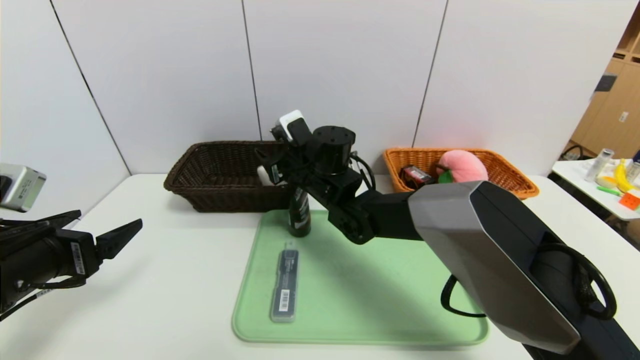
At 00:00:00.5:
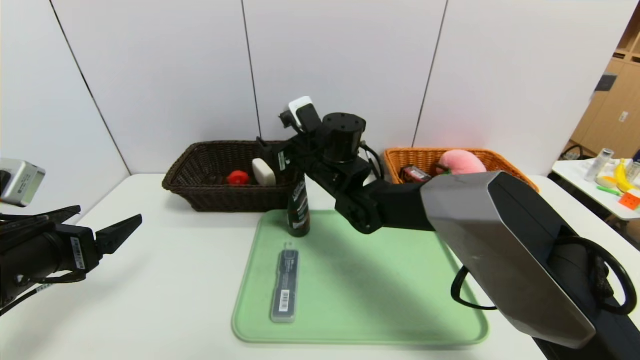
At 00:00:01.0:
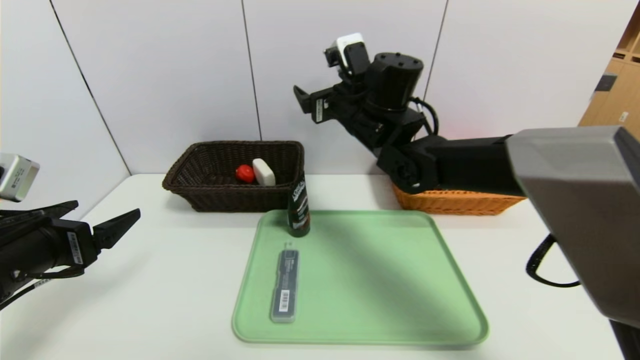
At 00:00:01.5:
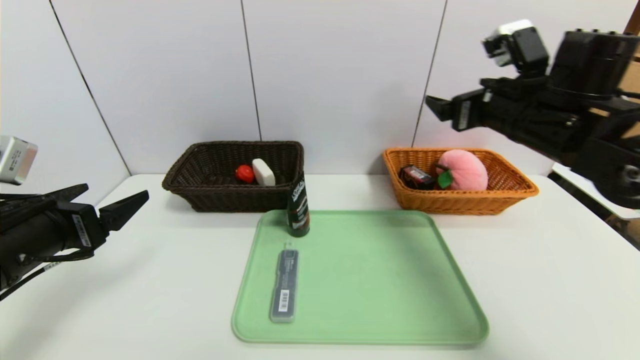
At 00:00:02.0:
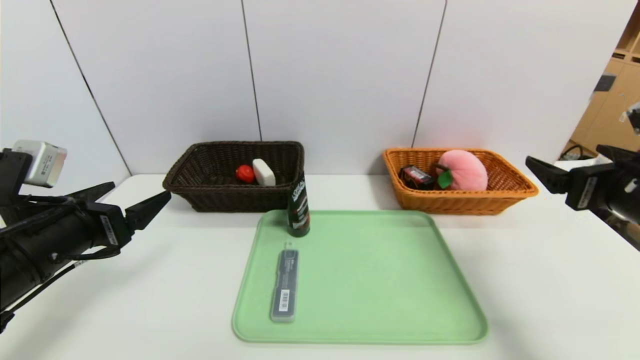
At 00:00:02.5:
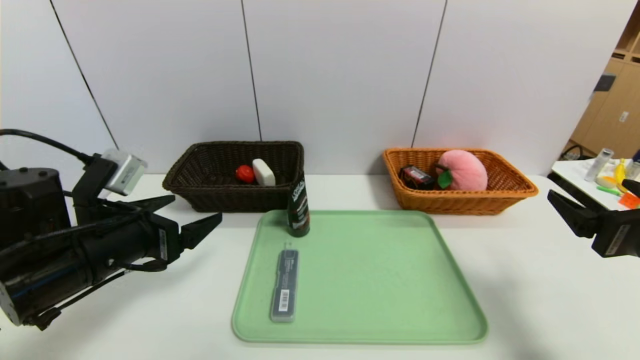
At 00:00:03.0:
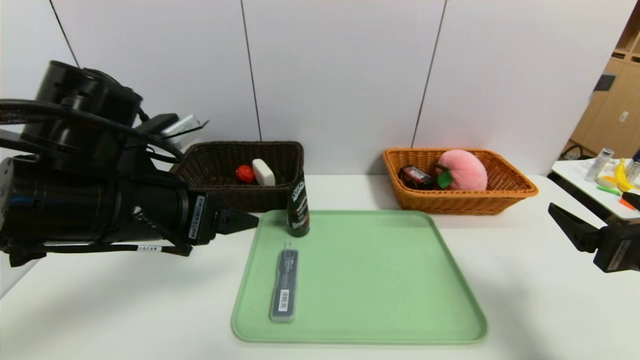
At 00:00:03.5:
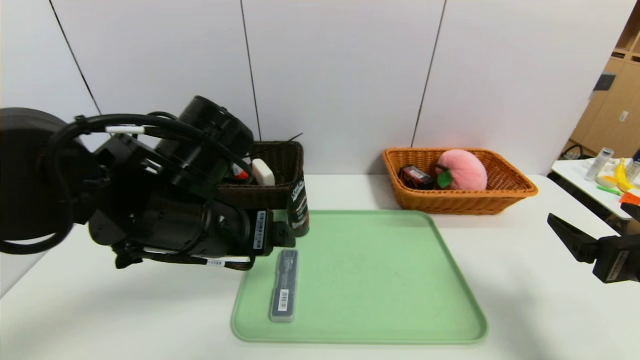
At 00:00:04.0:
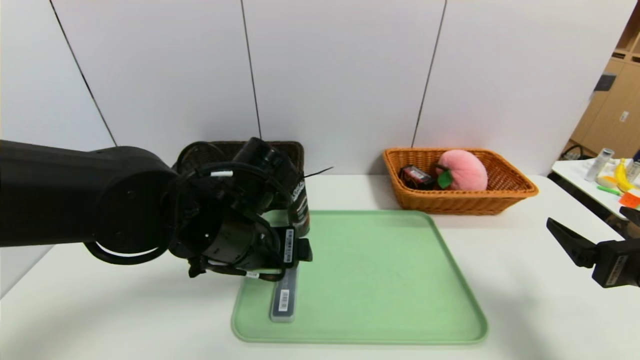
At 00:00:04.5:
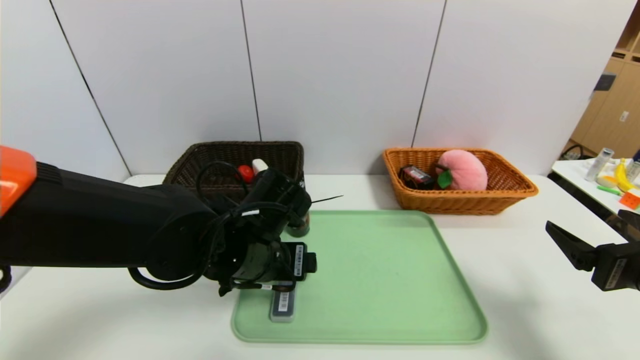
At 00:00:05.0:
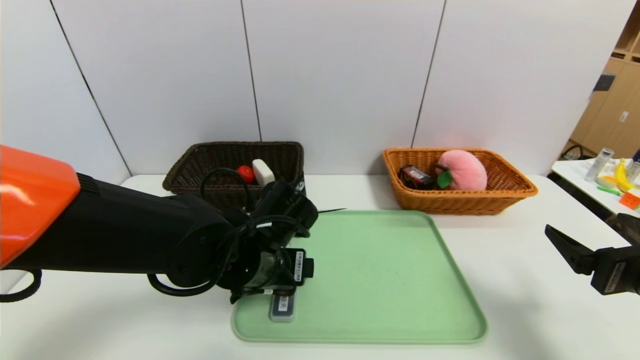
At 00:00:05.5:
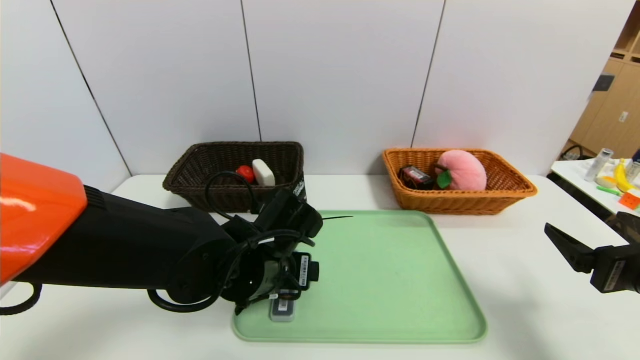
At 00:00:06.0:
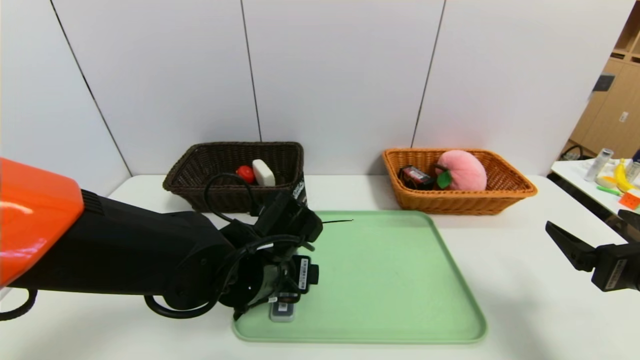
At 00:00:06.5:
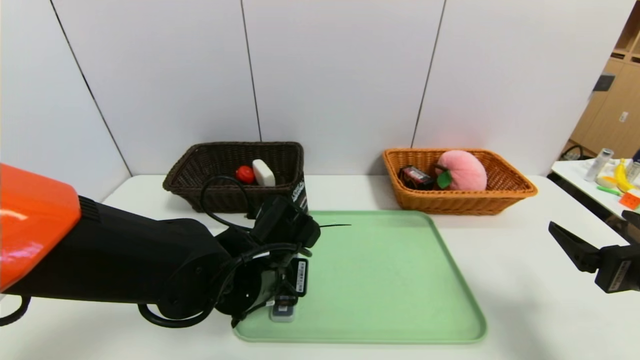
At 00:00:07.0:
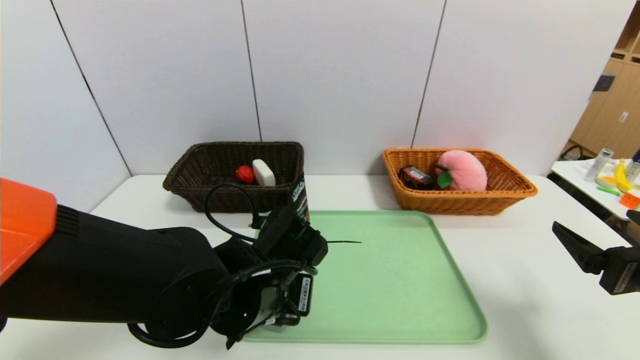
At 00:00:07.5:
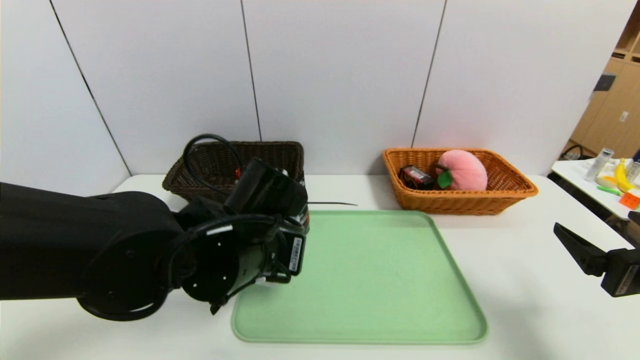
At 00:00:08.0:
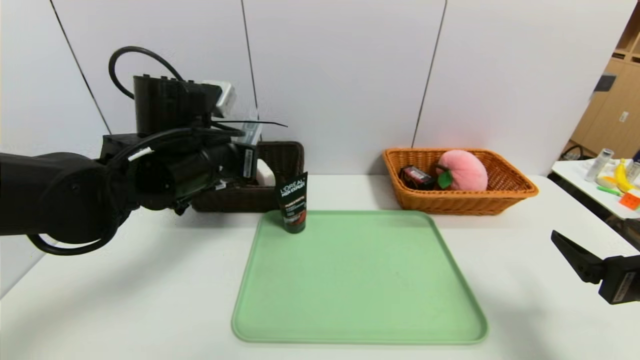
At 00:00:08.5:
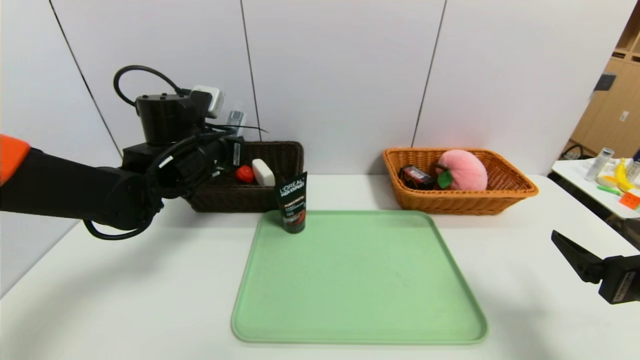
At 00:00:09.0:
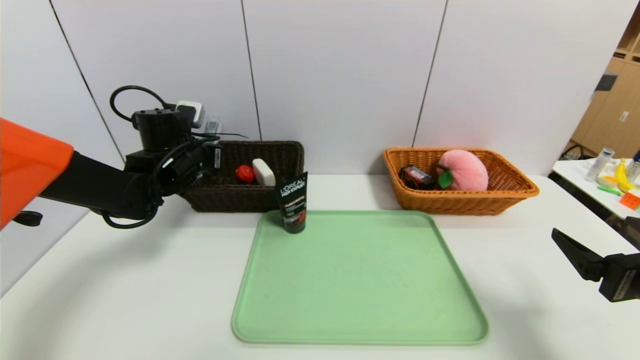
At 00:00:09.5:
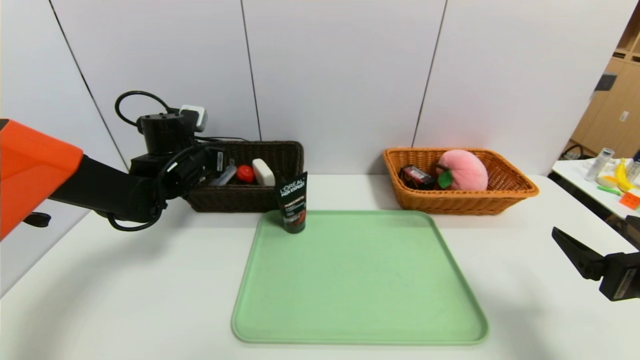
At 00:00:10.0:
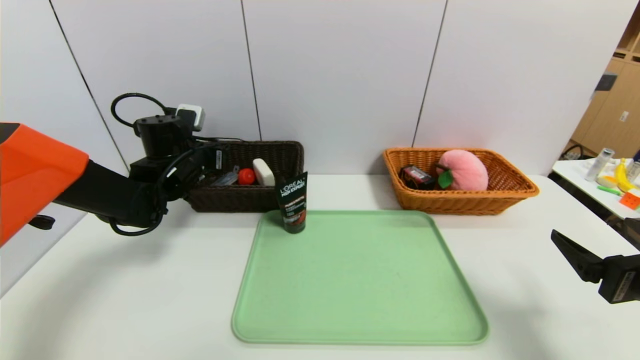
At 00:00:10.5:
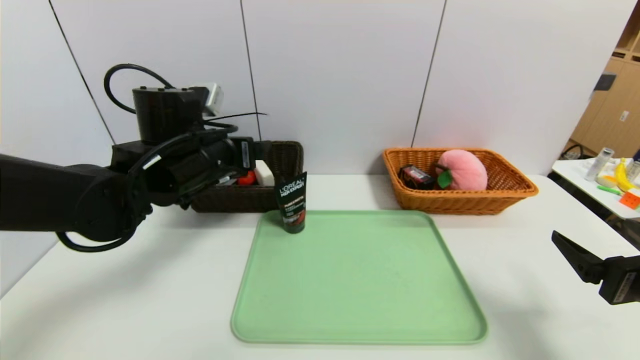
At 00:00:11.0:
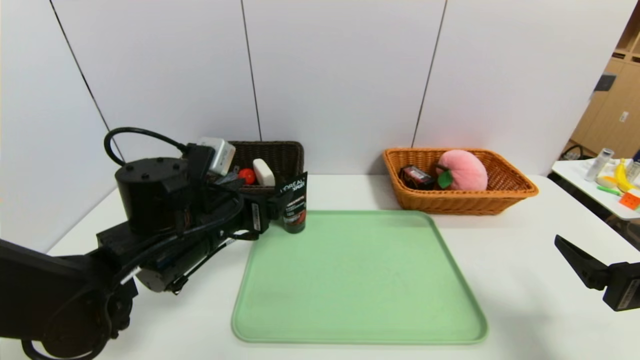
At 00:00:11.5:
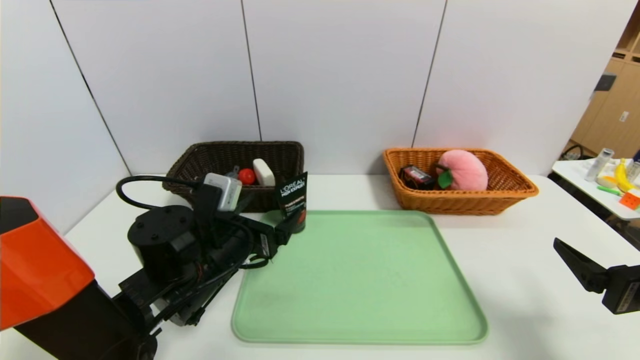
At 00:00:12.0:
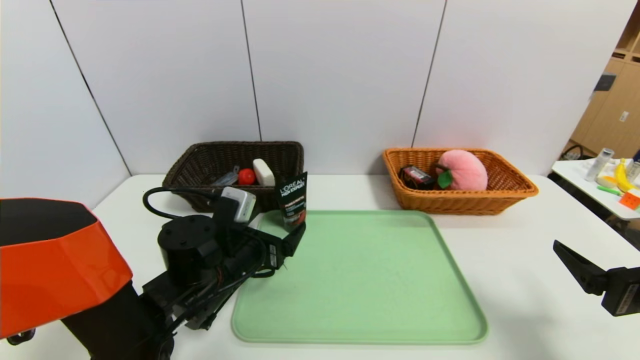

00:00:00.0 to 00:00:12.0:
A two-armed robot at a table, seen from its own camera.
Task of the whole recording: place the food in the right basket with the right gripper, and place the non food items in the left basket with the left gripper.
Step, 00:00:00.5 to 00:00:09.5: Grasp the compass and put it in the left basket.
00:00:00.0 to 00:00:02.0: The right gripper goes about 40 cm to the right and backward, and opens.
00:00:02.0 to 00:00:04.0: The left gripper is displaced to the right by about 20 cm, while the right gripper goes roughly 10 cm backward and downward.
00:00:04.0 to 00:00:06.0: The left gripper goes about 10 cm downward.
00:00:06.0 to 00:00:08.0: The left gripper moves upward and to the left, about 15 cm, and closes.
00:00:08.0 to 00:00:10.0: The left gripper goes some 15 cm forward, to the left and downward, and opens up.
00:00:10.0 to 00:00:12.0: The left gripper is displaced backward, to the right and downward by roughly 20 cm.

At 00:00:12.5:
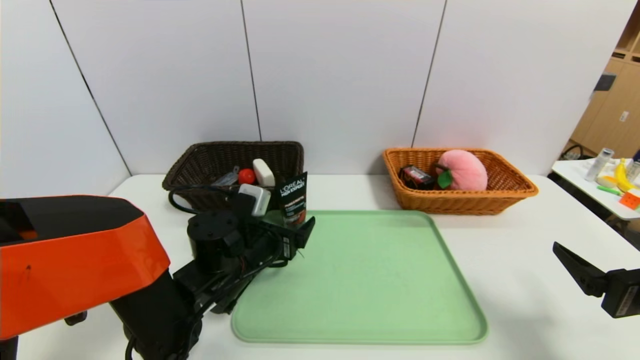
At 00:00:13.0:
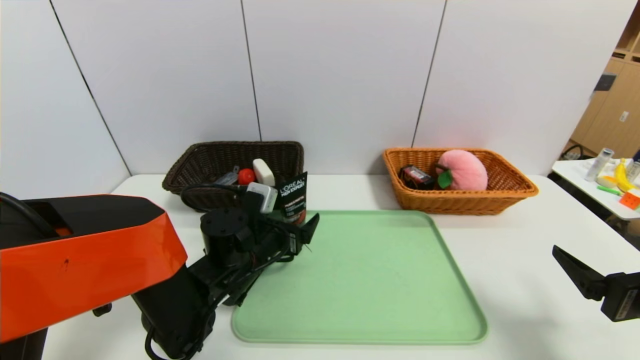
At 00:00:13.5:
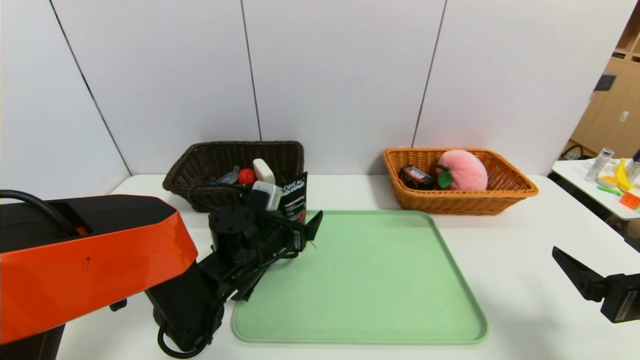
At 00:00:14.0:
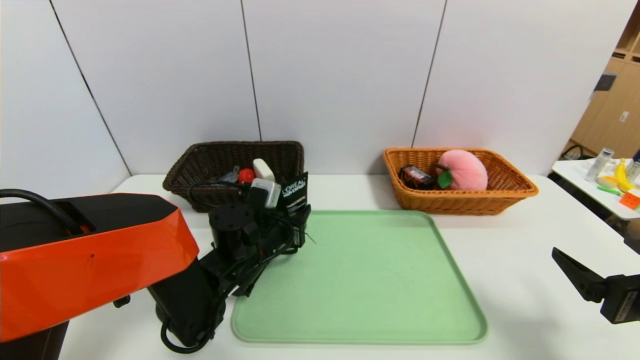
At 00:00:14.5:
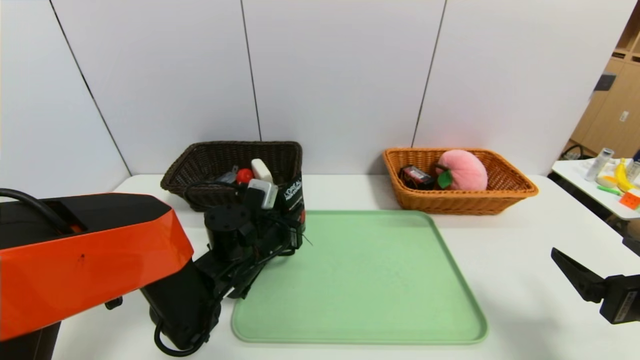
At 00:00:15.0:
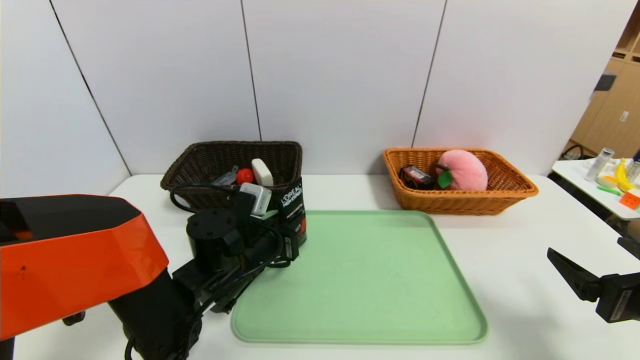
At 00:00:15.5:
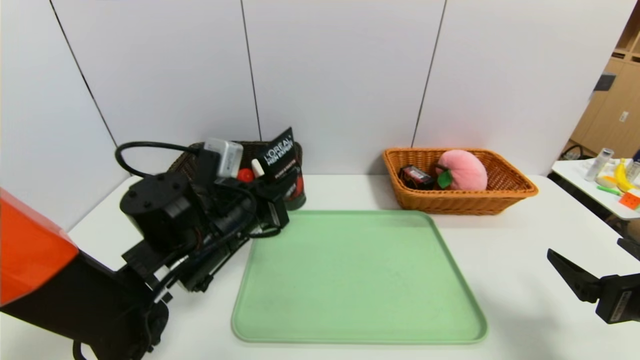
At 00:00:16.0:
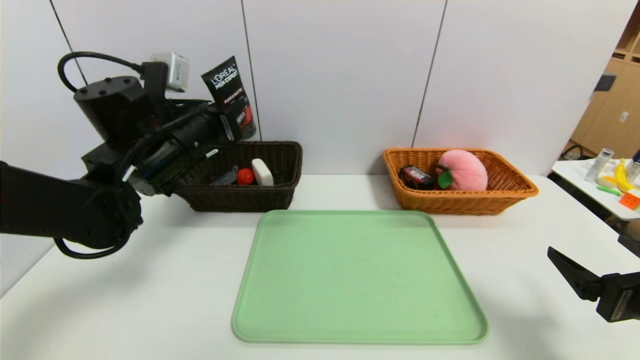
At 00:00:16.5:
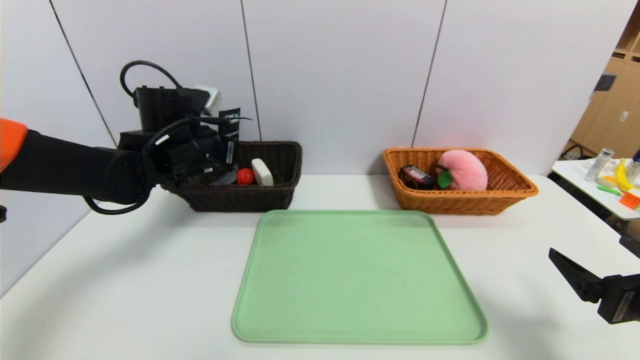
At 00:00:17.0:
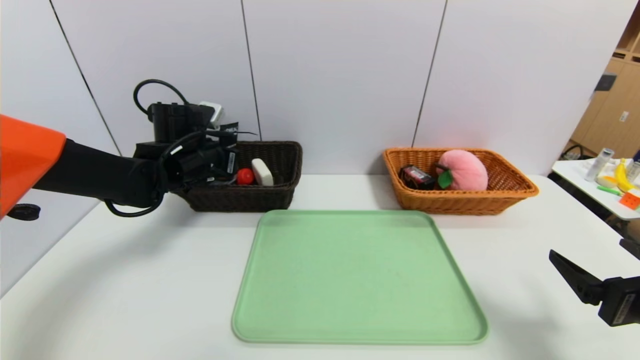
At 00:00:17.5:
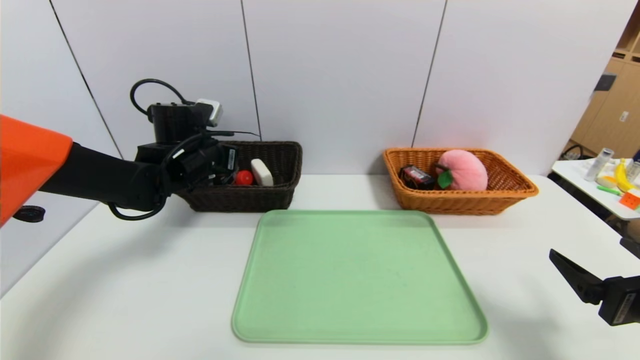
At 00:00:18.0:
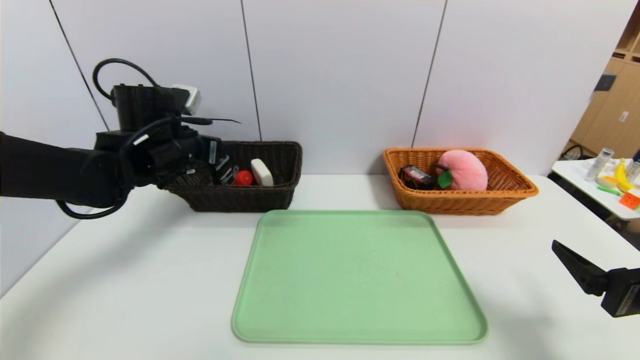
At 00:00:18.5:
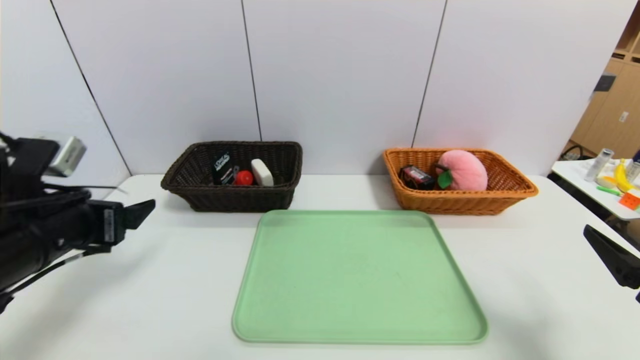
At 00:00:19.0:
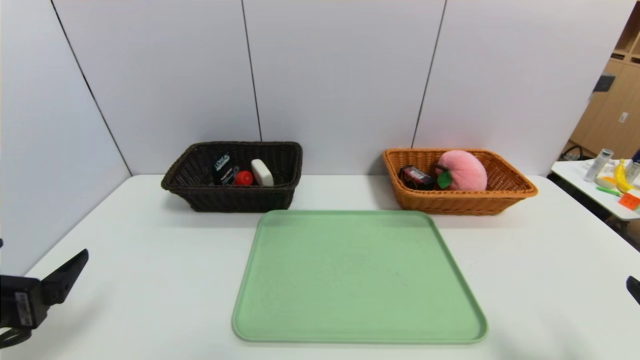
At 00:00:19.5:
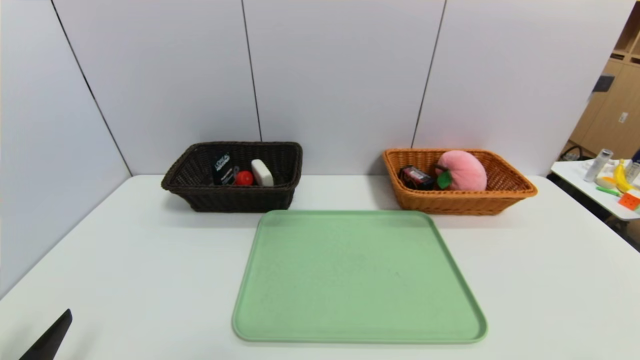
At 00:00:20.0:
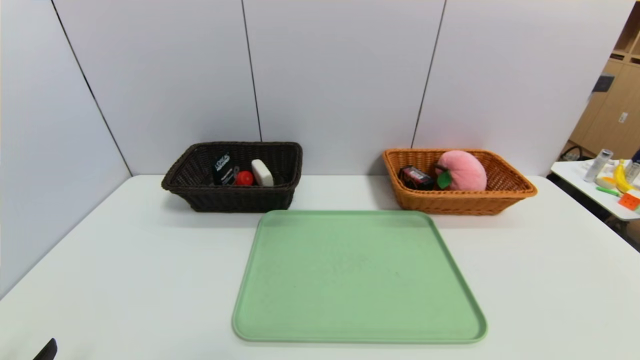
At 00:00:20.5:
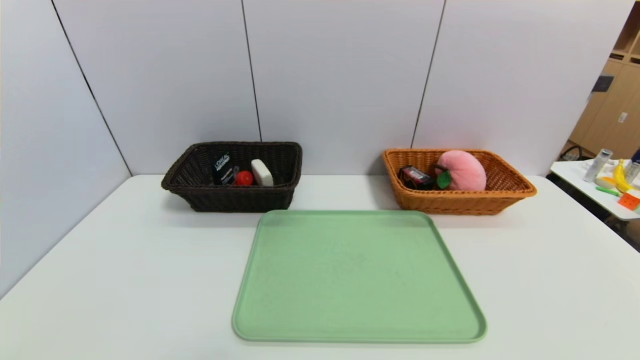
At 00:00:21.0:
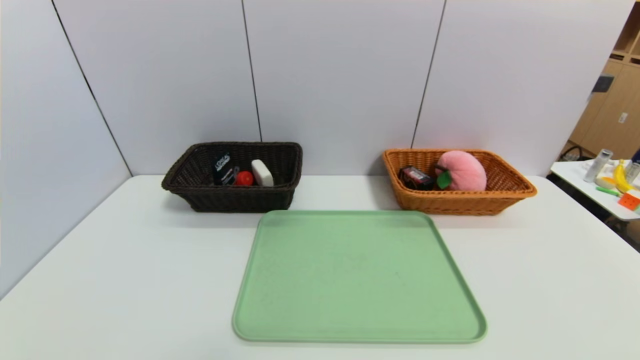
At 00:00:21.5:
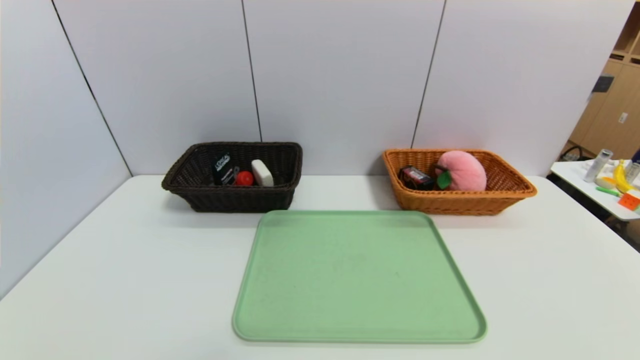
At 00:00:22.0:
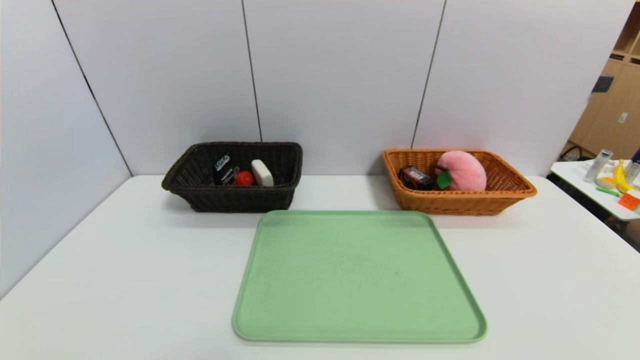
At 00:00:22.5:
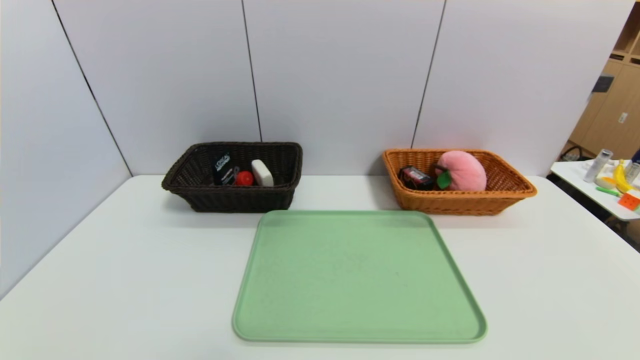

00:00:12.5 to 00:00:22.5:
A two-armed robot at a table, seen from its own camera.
Task of the whole recording: place the food in the right basket with the right gripper, and place the non food items in the left basket with the left gripper.
Step, 00:00:12.5 to 00:00:17.5: Grasp the shampoo and put it in the left basket.
00:00:12.5 to 00:00:14.5: The left gripper closes.
00:00:14.5 to 00:00:16.5: The left gripper is displaced upward, to the left and forward by about 20 cm.
00:00:16.5 to 00:00:18.5: The left gripper moves backward, about 20 cm, and opens up.
00:00:18.5 to 00:00:20.5: The left gripper shifts approximately 25 cm backward and downward. Meanwhile the right gripper is displaced backward by approximately 15 cm.
